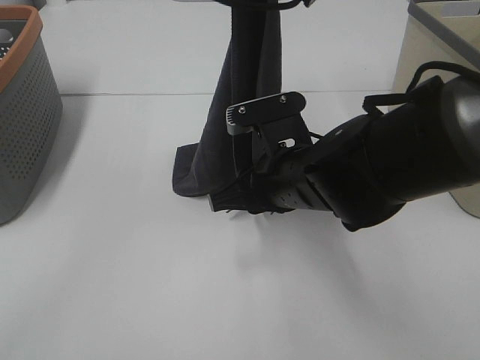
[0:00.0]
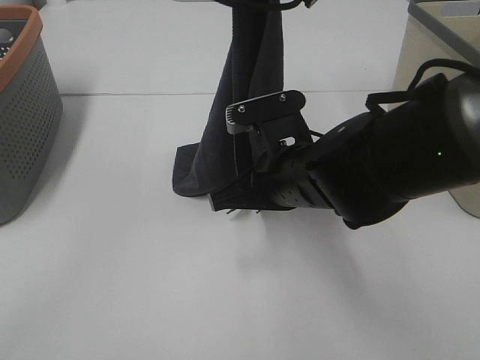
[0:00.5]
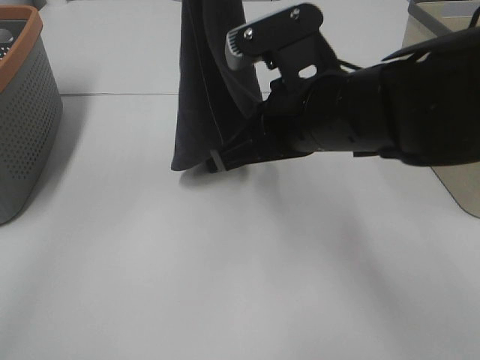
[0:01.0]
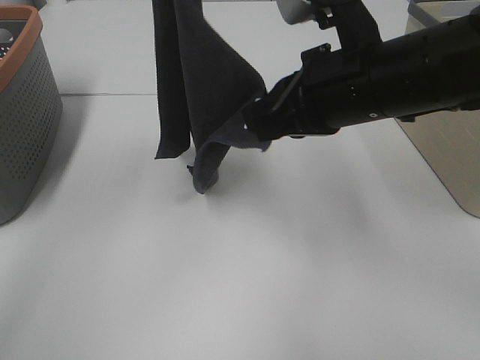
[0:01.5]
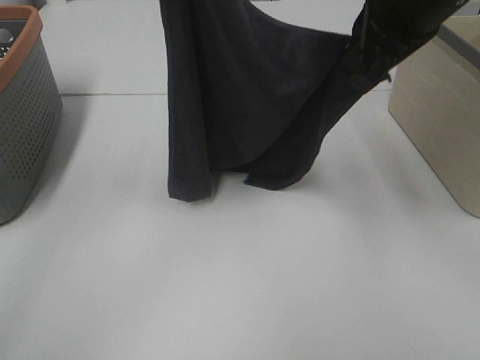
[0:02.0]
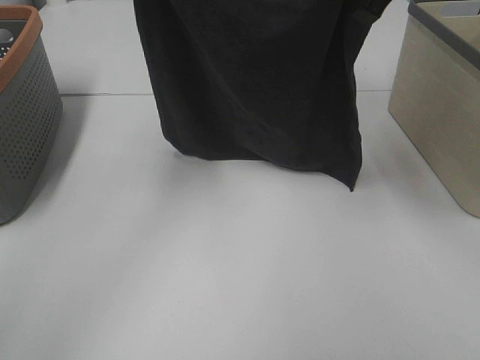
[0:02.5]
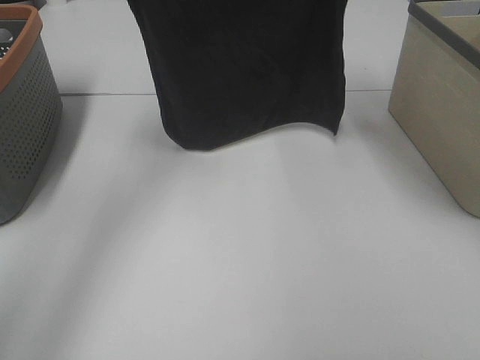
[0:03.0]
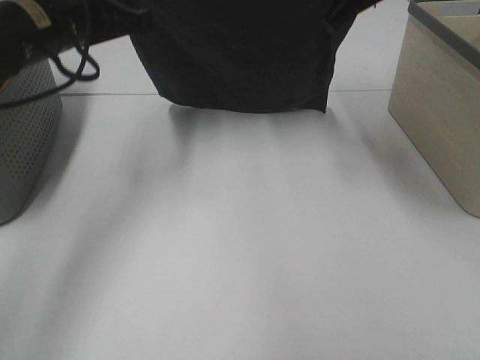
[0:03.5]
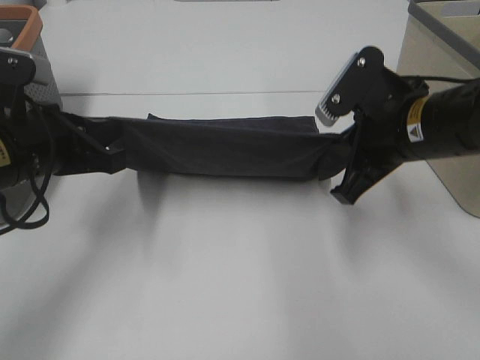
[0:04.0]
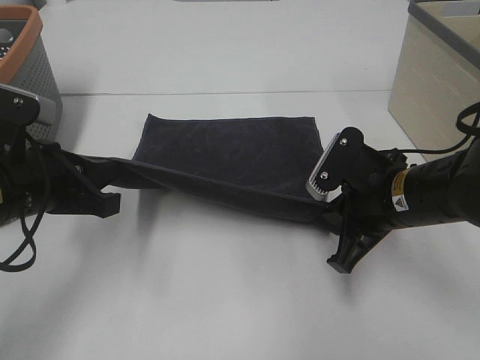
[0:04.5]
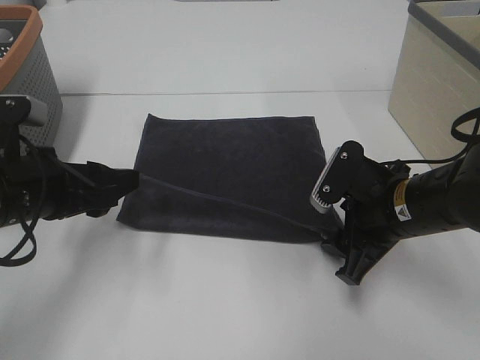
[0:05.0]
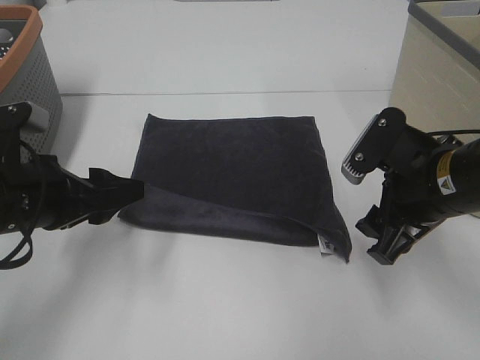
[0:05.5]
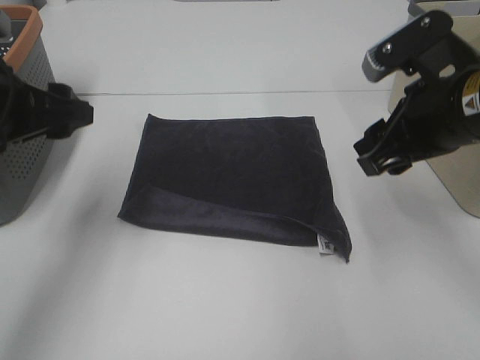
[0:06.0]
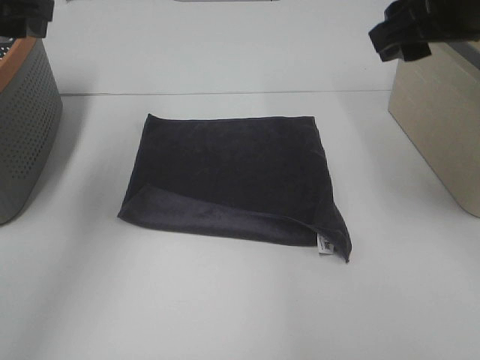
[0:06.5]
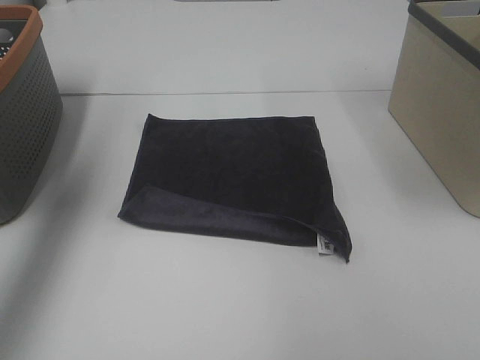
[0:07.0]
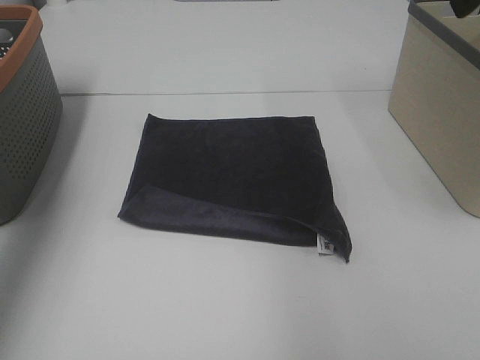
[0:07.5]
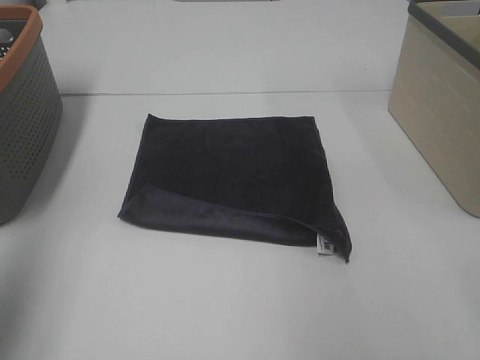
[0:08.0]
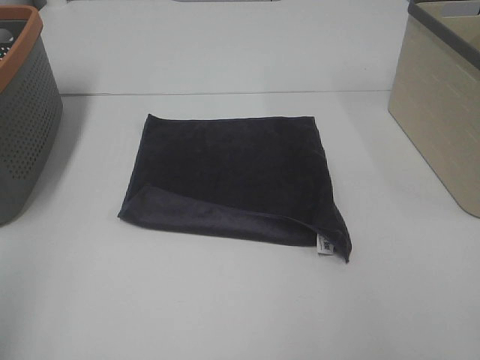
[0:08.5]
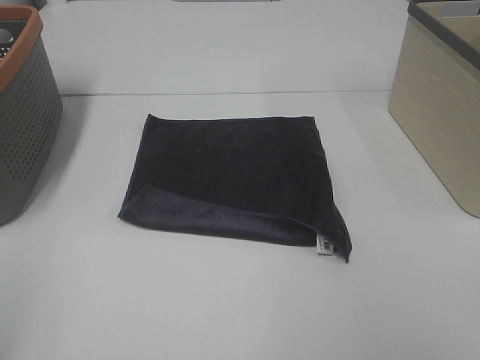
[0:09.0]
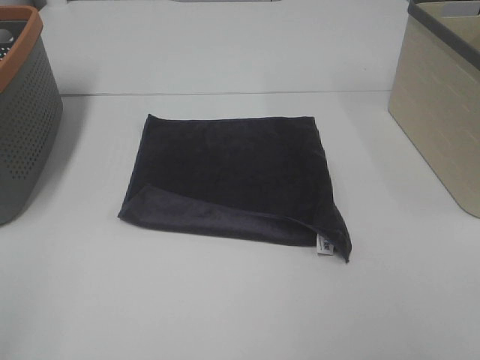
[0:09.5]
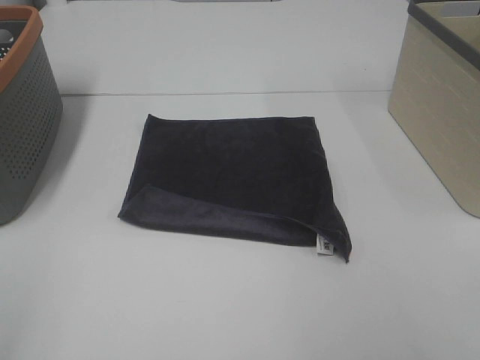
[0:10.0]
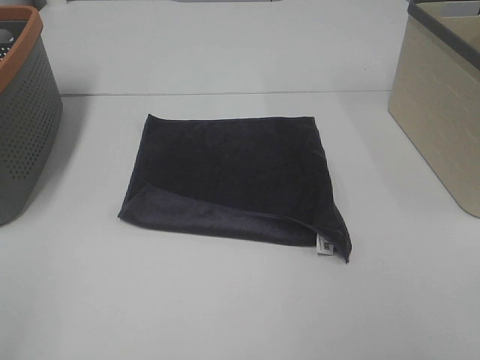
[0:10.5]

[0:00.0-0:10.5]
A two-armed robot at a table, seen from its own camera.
Task of the whole recording: Remove the towel and place it.
0:00.0 to 0:02.0: The left gripper heads to the left, covering approximately 15 cm, while the right gripper travels upward and to the right by approximately 20 cm, and closes up.
0:02.0 to 0:04.0: The left gripper goes some 25 cm downward and to the left. The right gripper heads downward, covering some 15 cm.
0:04.0 to 0:06.5: Both grippers move upward, approximately 15 cm. The right gripper opens up. Meanwhile the left gripper opens its fingers.
0:06.5 to 0:08.5: The left gripper travels backward by approximately 20 cm. The right gripper moves backward and to the right, approximately 20 cm.

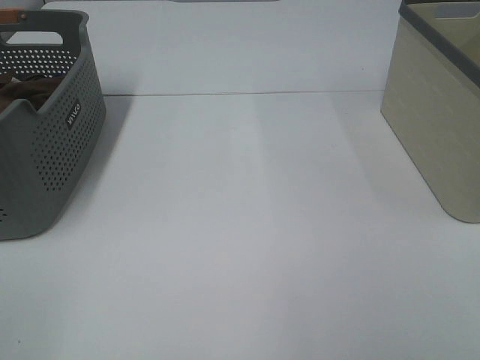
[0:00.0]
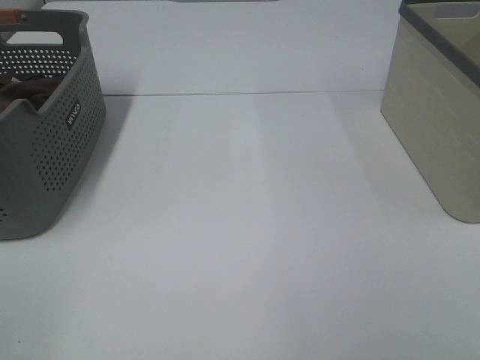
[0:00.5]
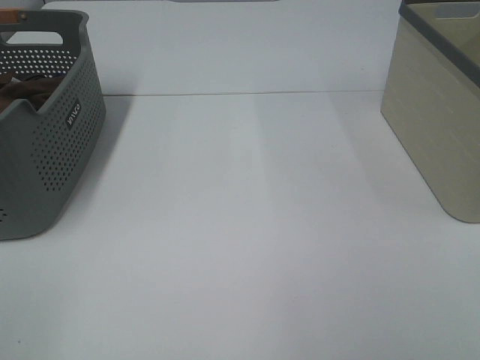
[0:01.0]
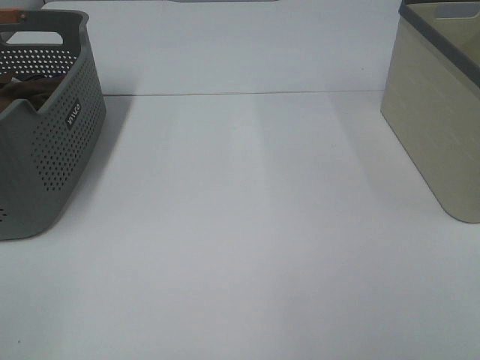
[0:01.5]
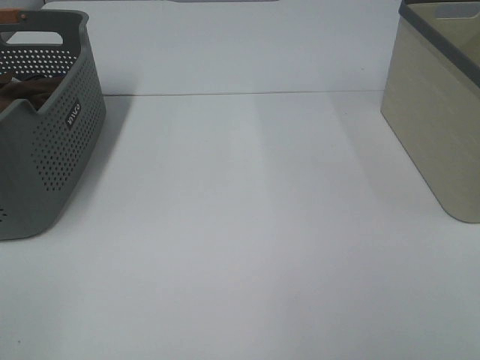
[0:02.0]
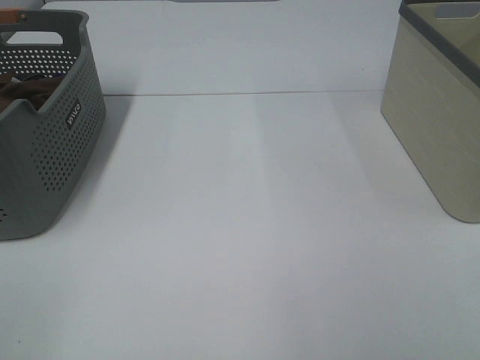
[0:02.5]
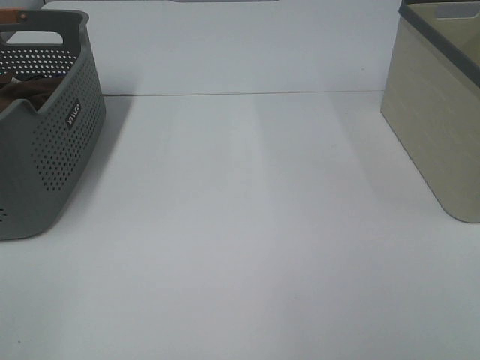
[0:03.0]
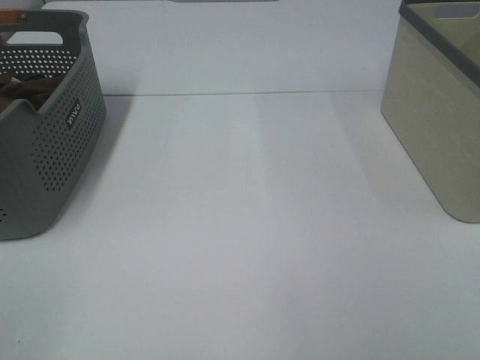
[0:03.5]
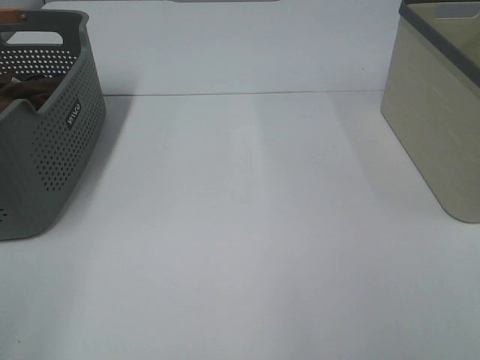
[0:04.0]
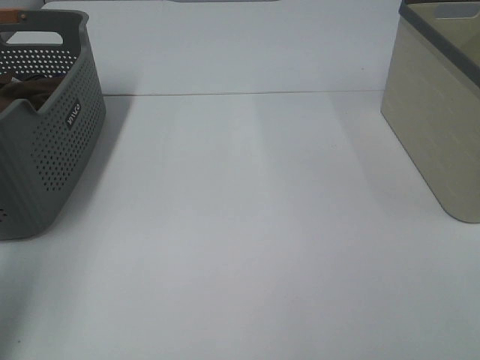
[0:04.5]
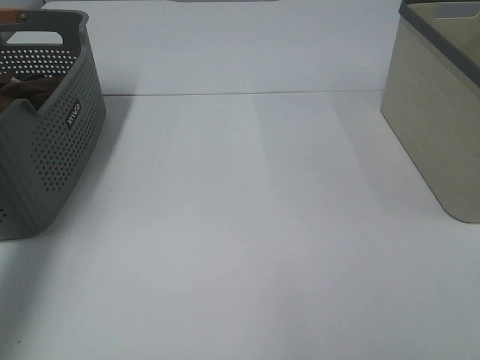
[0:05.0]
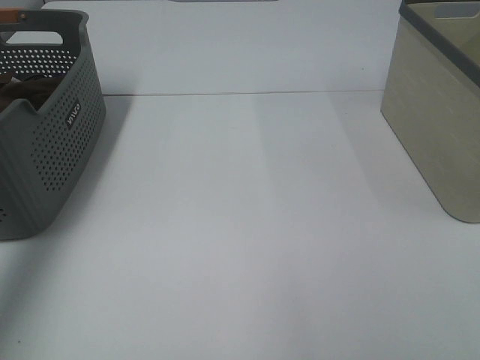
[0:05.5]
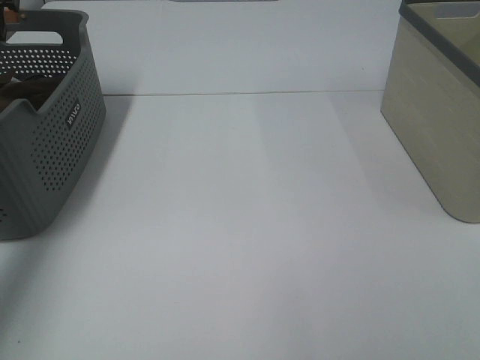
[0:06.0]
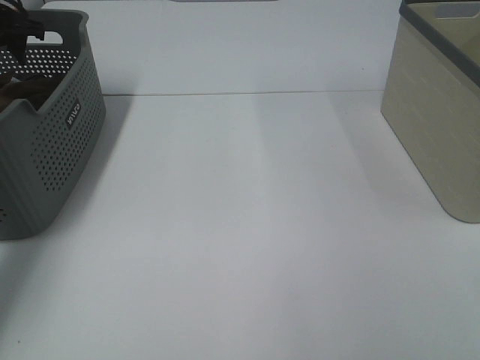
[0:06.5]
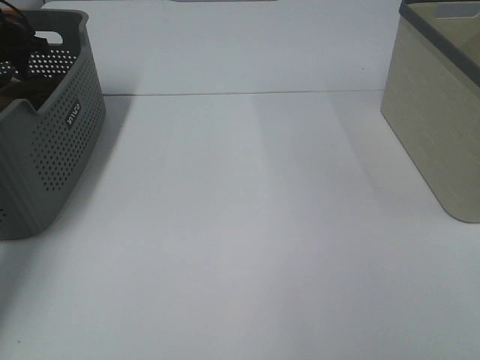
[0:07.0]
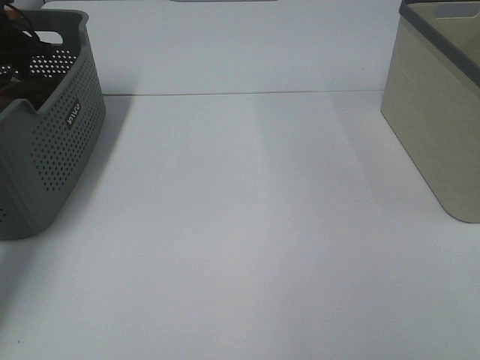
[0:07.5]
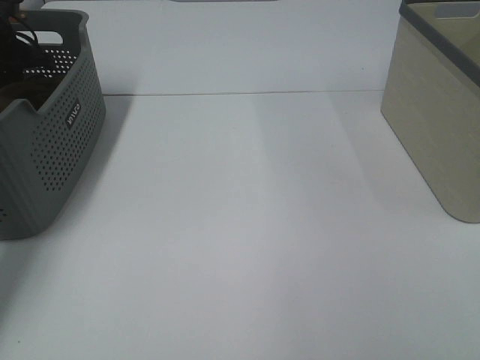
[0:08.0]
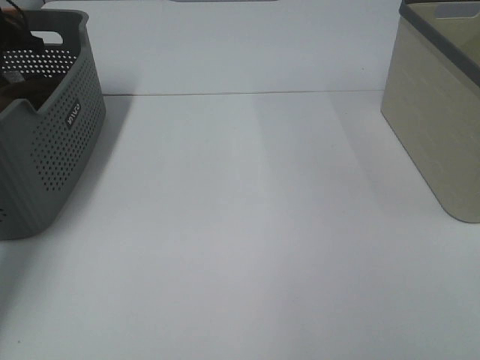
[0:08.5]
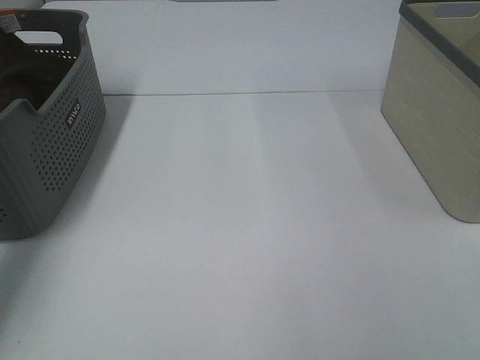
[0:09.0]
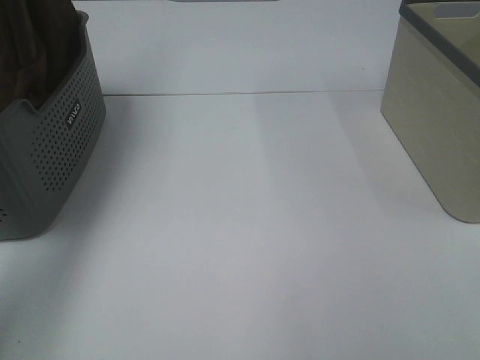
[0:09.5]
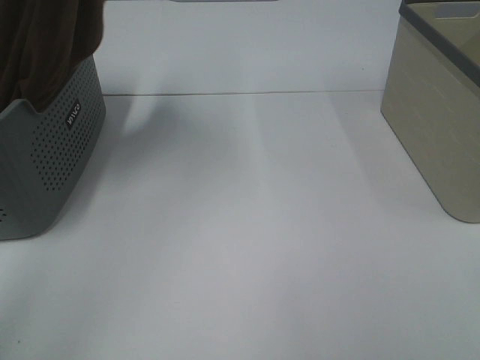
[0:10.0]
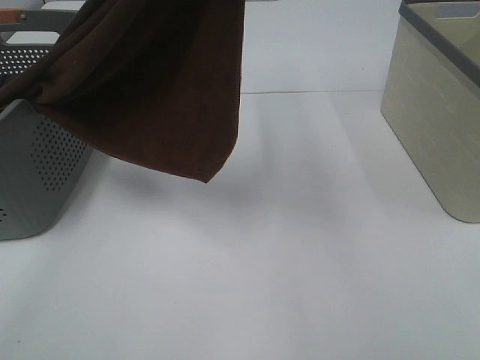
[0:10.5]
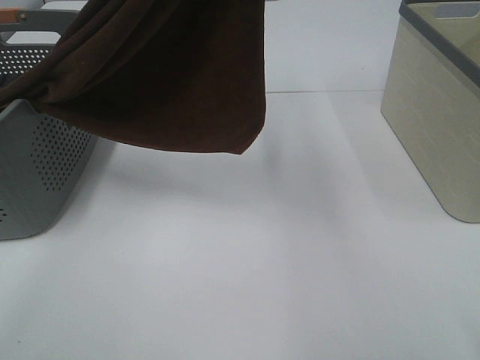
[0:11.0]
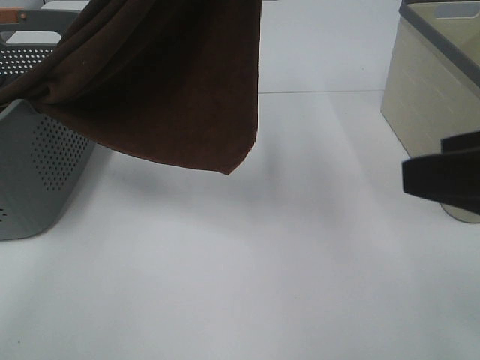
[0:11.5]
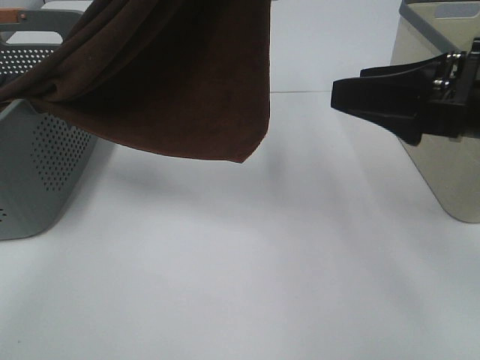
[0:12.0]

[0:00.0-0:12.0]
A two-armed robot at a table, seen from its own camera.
Task of the whole recording: Remove the towel and place it.
0:00.0 to 0:02.0: Both grippers stay put.
0:04.0 to 0:06.0: The left gripper shifts approximately 40 cm forward.
0:06.0 to 0:08.0: The left gripper travels downward and forward by roughly 15 cm, and closes its fingers.
0:08.0 to 0:10.0: The left gripper shifts about 40 cm upward, to the right and backward.
0:10.0 to 0:12.0: The right gripper travels forward by some 20 cm. The left gripper goes some 15 cm to the right and backward.

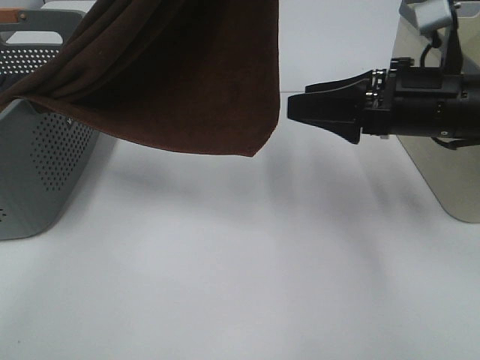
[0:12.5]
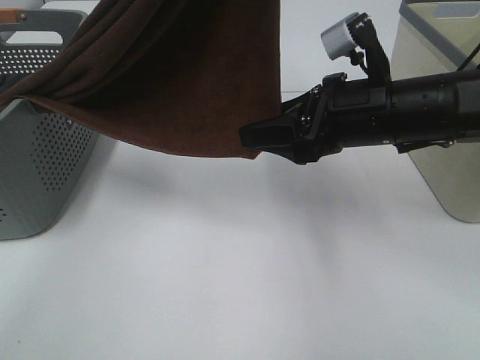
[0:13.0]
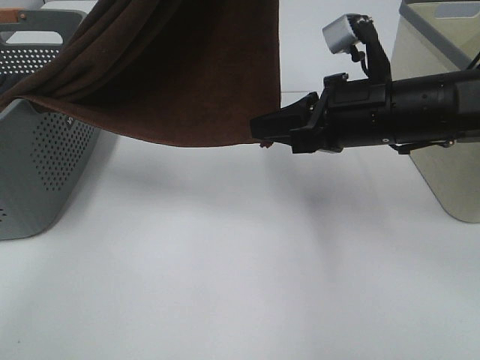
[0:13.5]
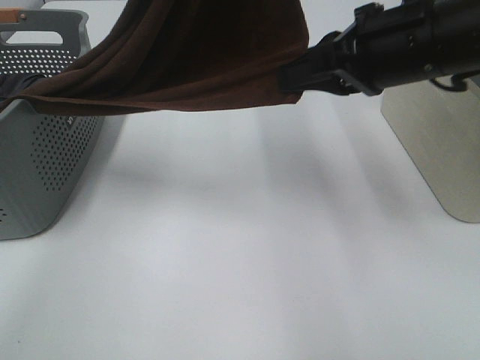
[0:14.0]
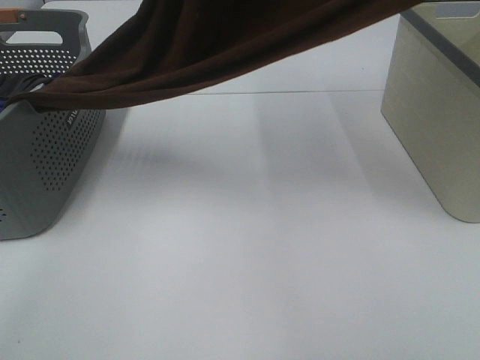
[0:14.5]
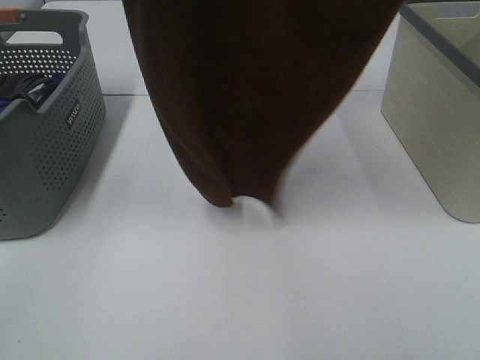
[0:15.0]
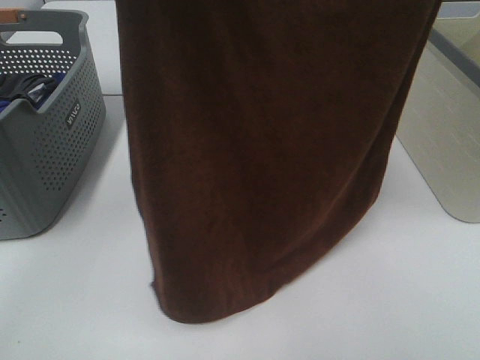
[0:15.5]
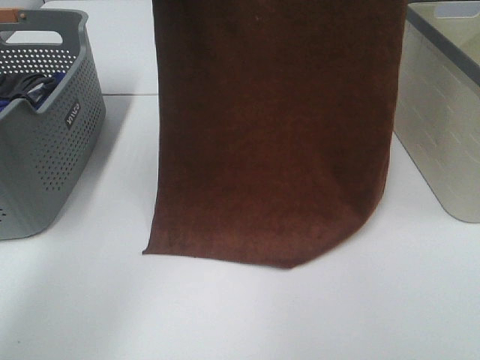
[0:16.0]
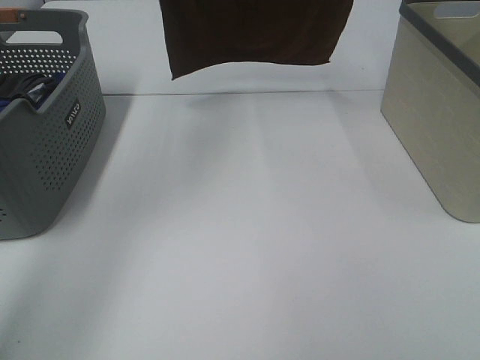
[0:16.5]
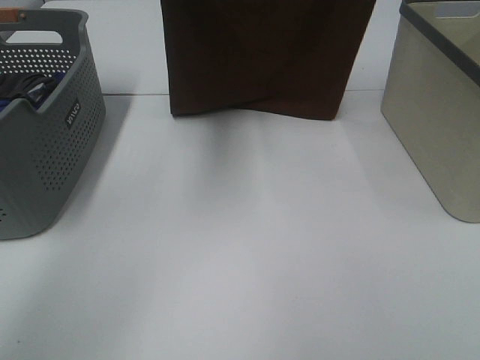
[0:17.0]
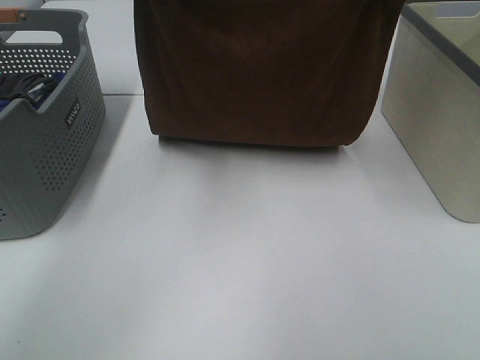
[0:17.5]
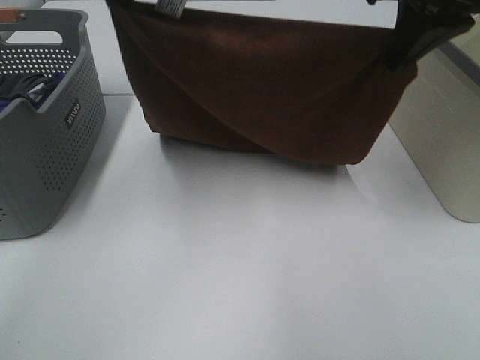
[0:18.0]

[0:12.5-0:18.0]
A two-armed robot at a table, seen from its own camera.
Task of the whole recording: Remove the towel and place it.
Step, 0:13.0 to 0:15.5: Left hand: spread the brown towel flat on the table.
Step, 0:13.0 to 0:15.5: Right hand: spread the brown towel flat on the table.
0:12.5 to 0:14.5: The right gripper shifts some 25 cm upward, and closes up.
0:14.5 to 0:16.0: The left gripper shifts about 15 cm forward, downward and to the left; the right gripper goes some 15 cm forward.
0:16.0 to 0:18.0: The right gripper heads downward and backward, covering approximately 15 cm. The left gripper is displaced backward and downward by about 15 cm.
